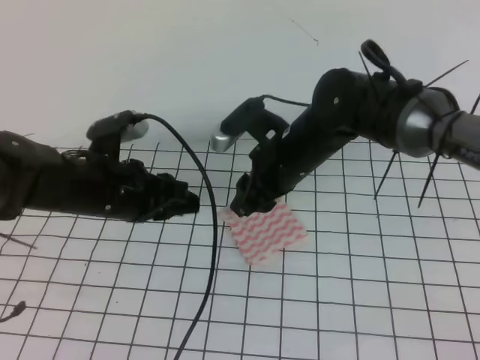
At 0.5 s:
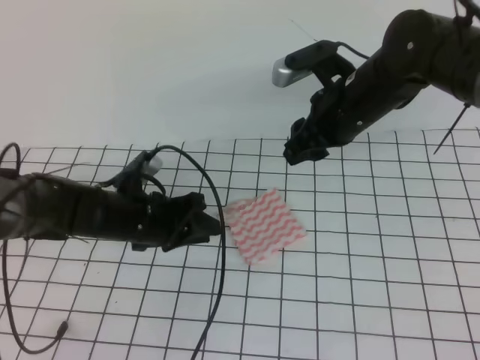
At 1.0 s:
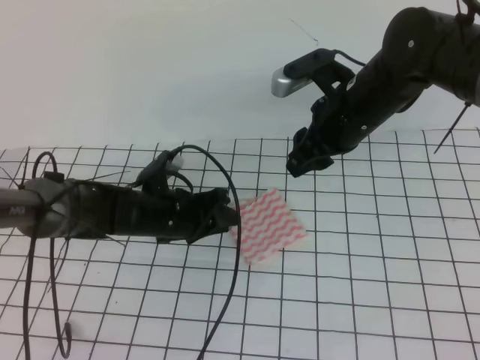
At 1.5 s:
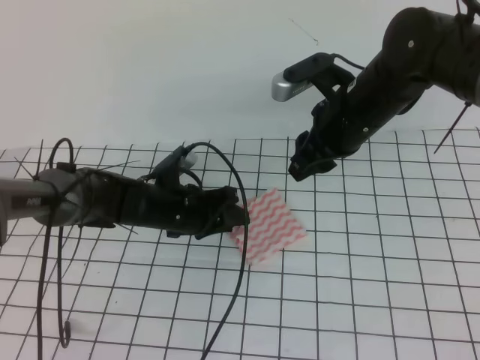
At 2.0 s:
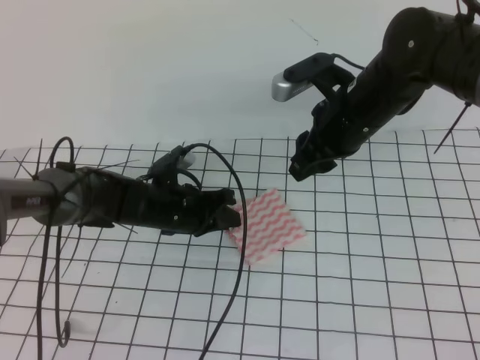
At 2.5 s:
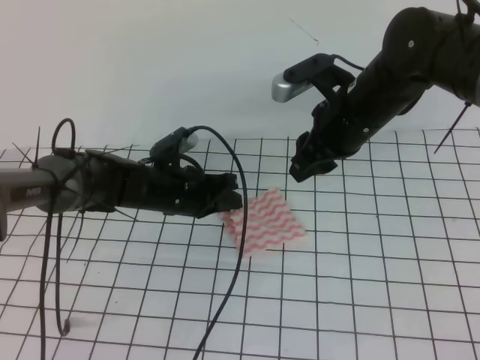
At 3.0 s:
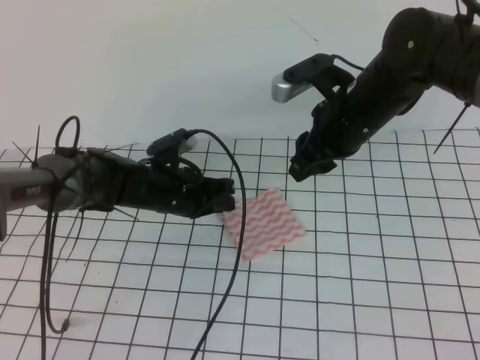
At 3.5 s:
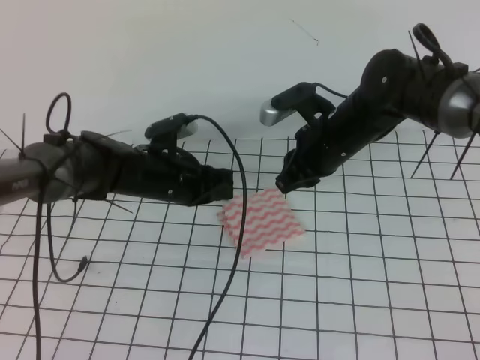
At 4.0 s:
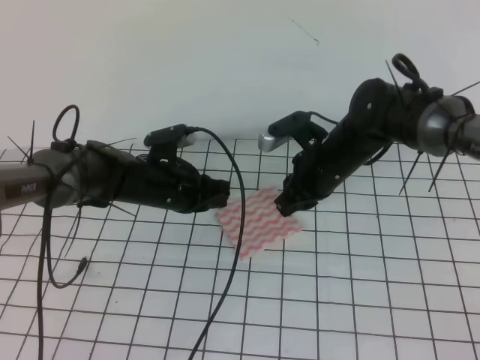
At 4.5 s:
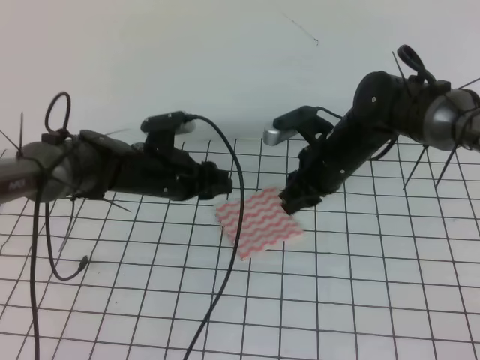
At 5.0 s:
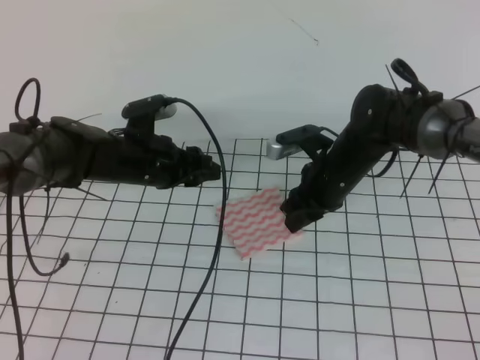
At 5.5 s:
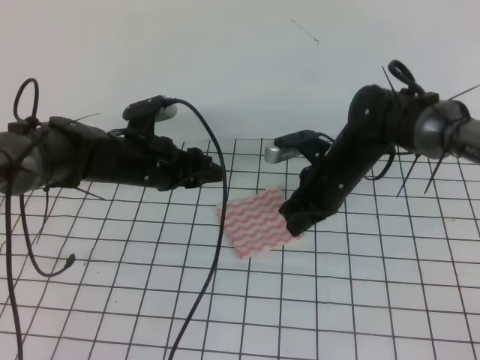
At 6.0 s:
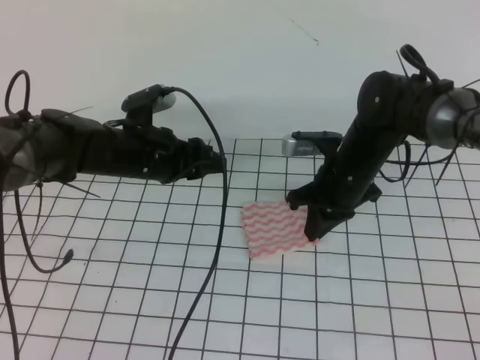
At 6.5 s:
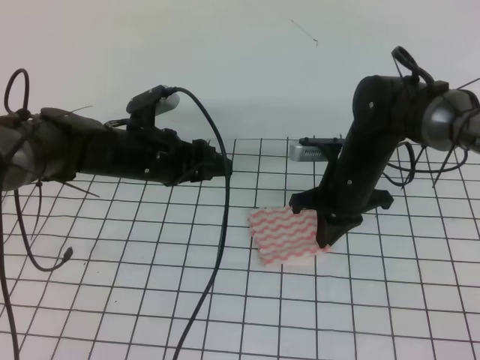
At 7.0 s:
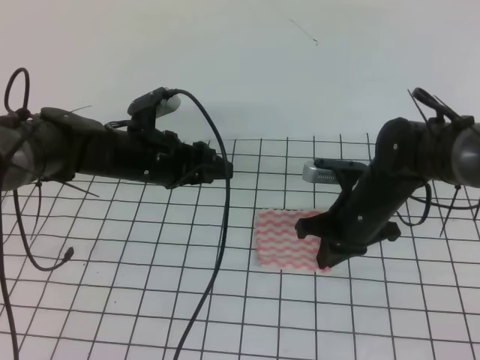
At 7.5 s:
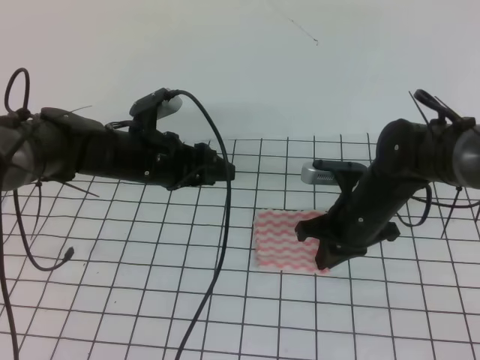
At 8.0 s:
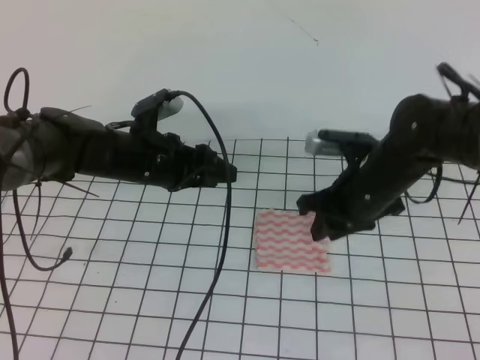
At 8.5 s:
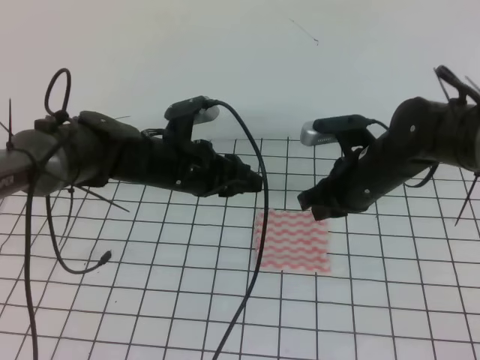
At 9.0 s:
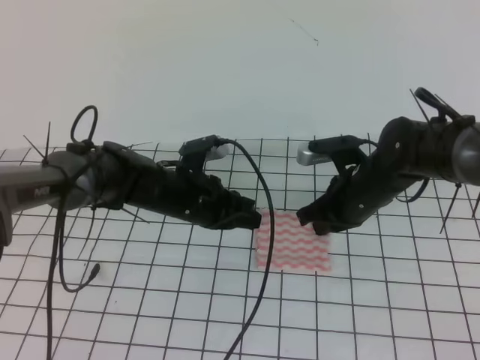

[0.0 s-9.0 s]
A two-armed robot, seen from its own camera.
0.0 to 2.0 s: The right gripper travels to the right and upward by roughly 10 cm, while the left gripper goes approximately 15 cm downward and forward, and closes its fingers.
2.0 to 4.5 s: The left gripper opens up, while the right gripper moves downward, roughly 10 cm, and closes and opens again.
4.5 to 7.0 s: The left gripper heads upward, covering some 5 cm. The right gripper heads backward, covering approximately 5 cm, and closes up.
7.0 to 9.0 s: The right gripper opens, then closes once more, while the left gripper ends up about 5 cm from where it was, and closes up.

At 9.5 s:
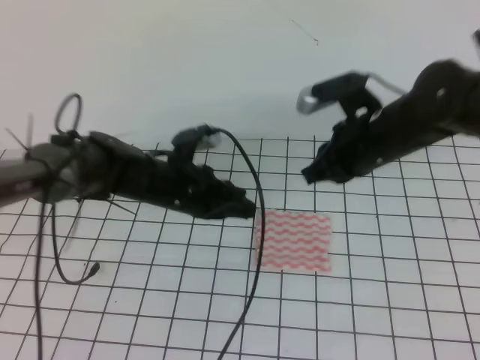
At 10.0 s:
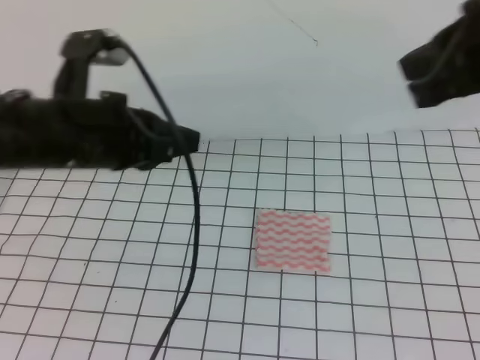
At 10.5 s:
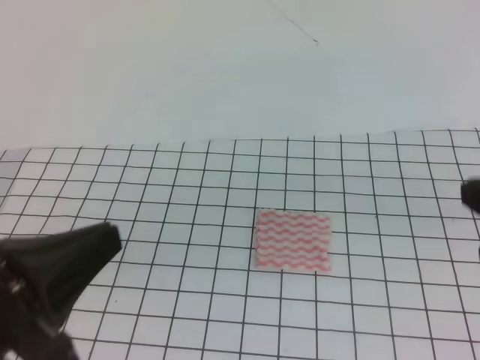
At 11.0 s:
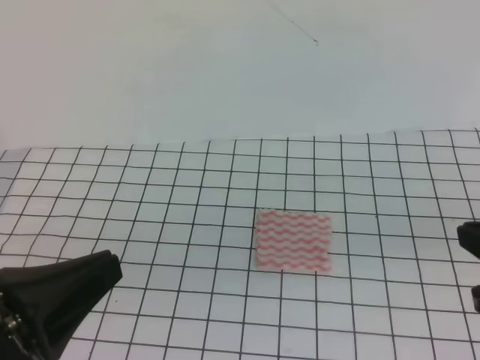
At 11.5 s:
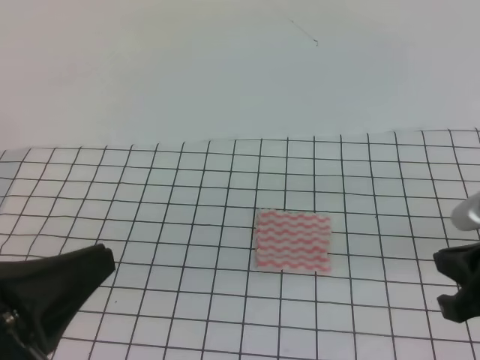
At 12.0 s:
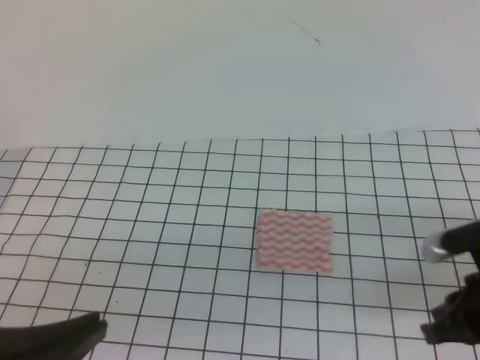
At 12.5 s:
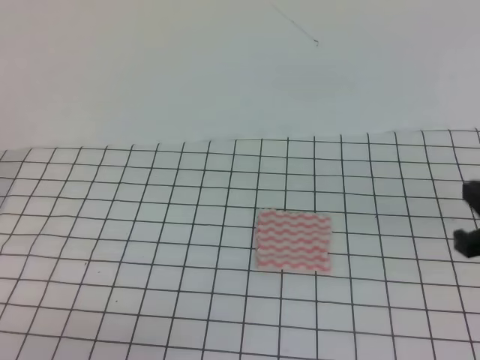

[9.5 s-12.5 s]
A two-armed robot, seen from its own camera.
9.5 to 11.0 s: The left gripper is displaced backward and upward by roughly 35 cm. The right gripper is displaced backward and to the right by some 25 cm.
11.0 to 12.5 s: Both grippers travel together downward, about 5 cm.
